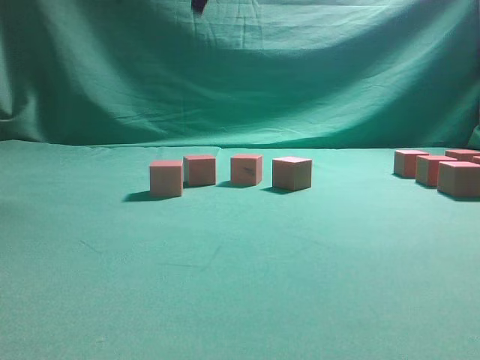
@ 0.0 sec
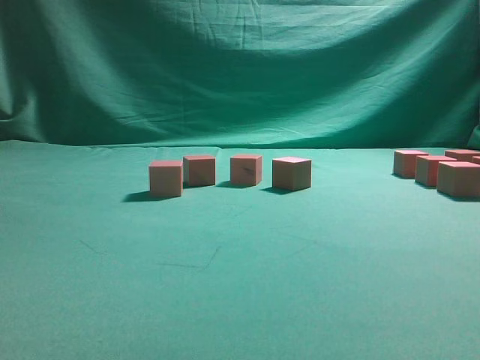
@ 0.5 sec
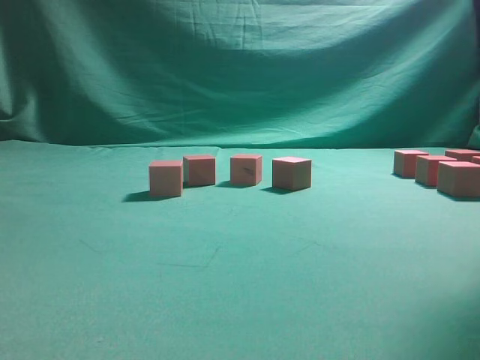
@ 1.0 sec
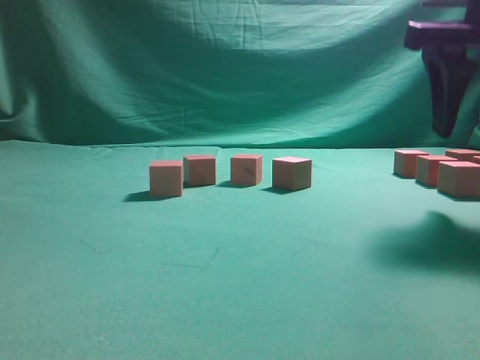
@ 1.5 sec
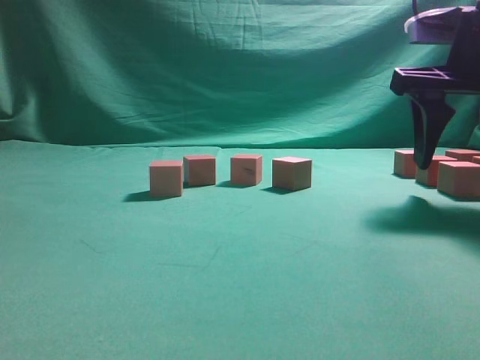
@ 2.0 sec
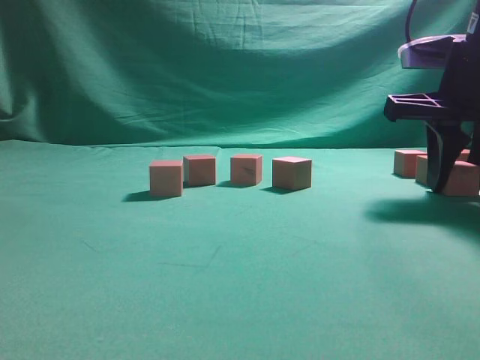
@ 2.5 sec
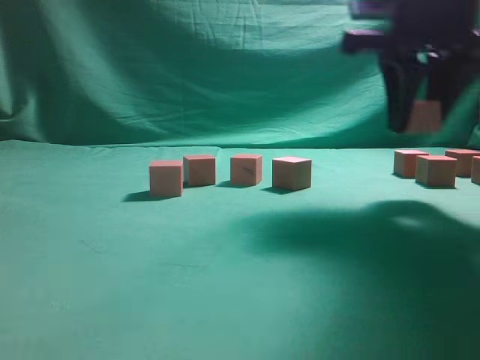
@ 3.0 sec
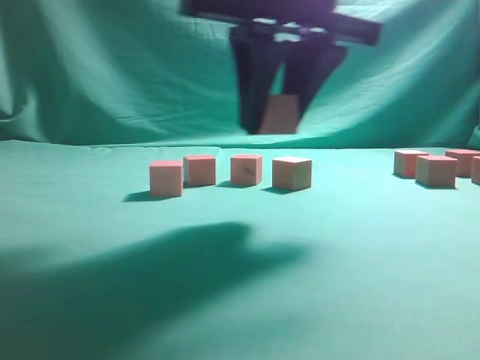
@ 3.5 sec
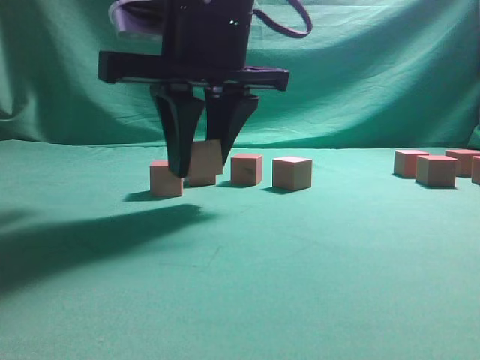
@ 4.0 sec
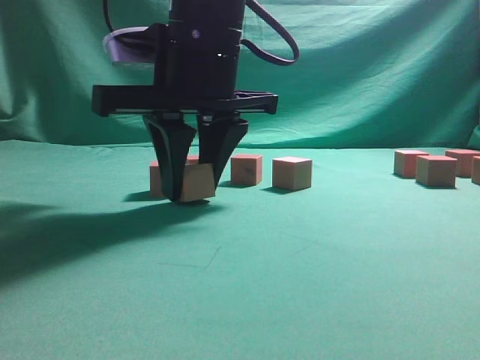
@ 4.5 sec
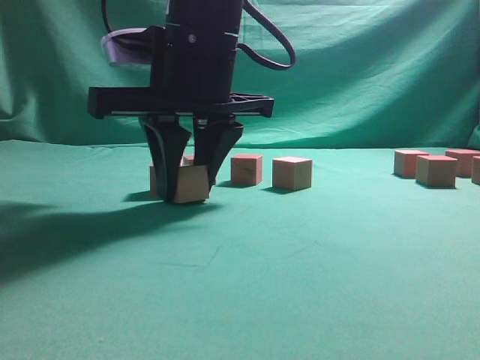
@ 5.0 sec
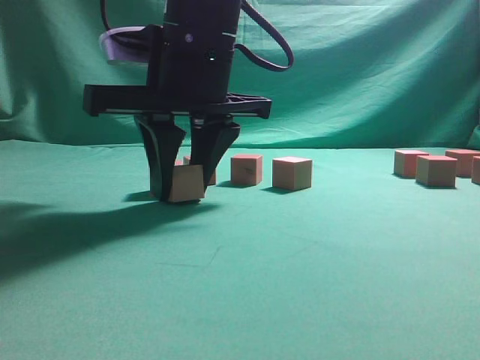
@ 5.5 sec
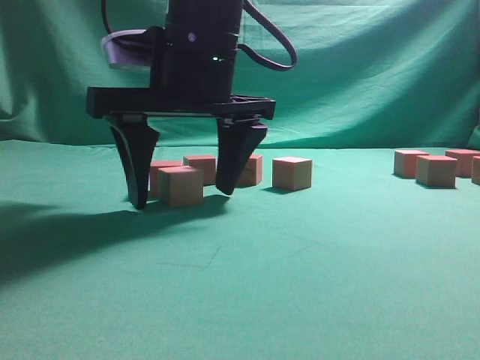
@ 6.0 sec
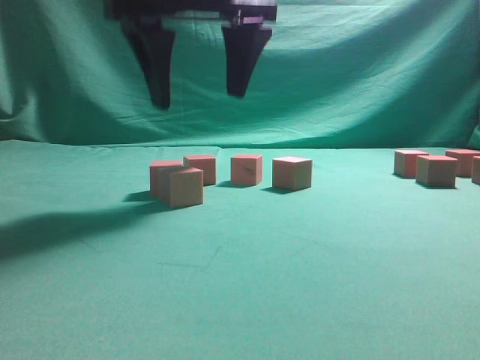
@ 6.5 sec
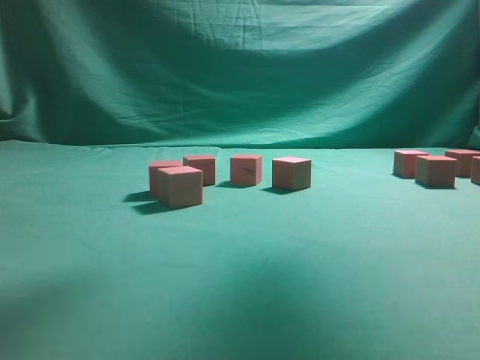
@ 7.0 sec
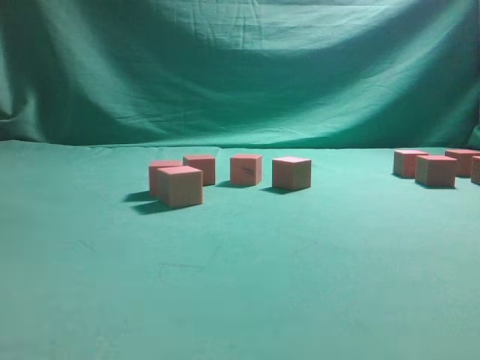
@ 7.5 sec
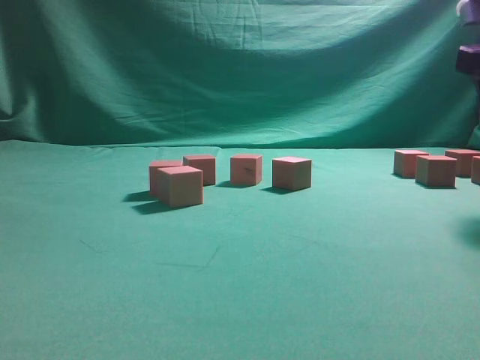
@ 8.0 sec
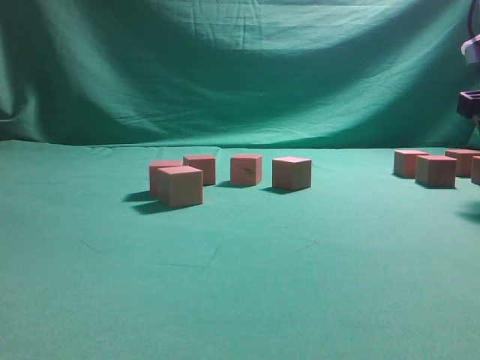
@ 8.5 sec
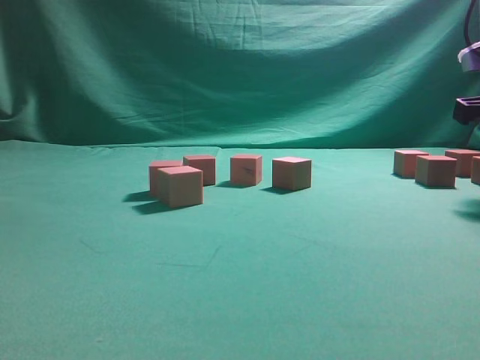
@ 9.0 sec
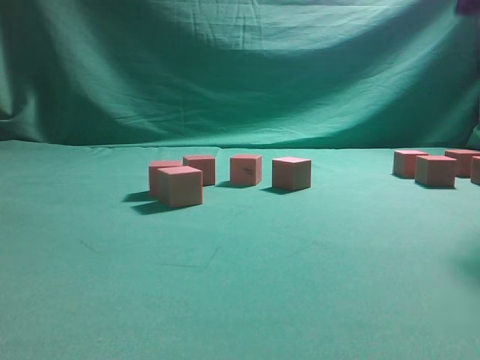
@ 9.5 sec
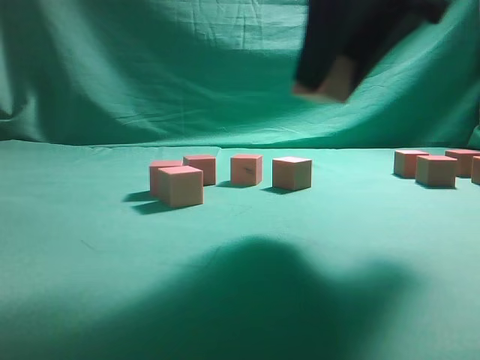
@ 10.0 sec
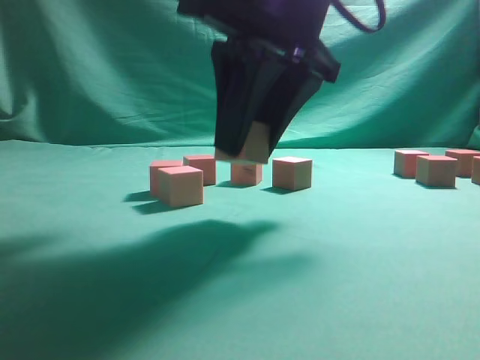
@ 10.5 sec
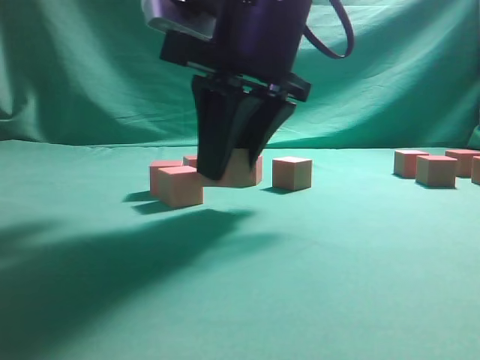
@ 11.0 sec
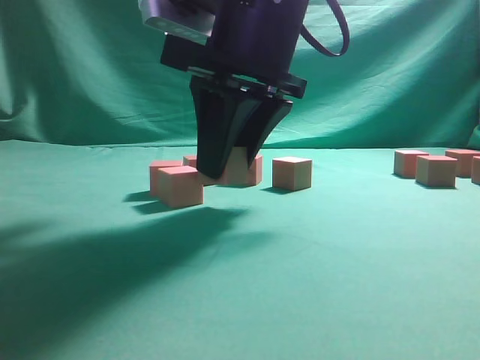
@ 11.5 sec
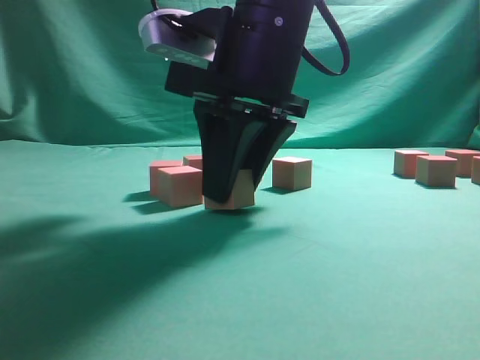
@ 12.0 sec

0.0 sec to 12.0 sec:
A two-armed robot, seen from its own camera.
Task of the whole recording: pick up the multiple cubes in two columns one by one and place them in another position on the table.
Step, 0.0 sec to 2.5 sec: Pick up the block on the table.
Step, 3.0 sec to 6.5 sec: Place the block at the correct position to assemble the letter S.
Step, 7.0 sec to 9.5 sec: Pick up the block on the table.
0.0 sec to 2.0 sec: The right gripper goes approximately 30 cm to the right and downward.
2.0 sec to 4.0 sec: The right gripper moves to the left, some 25 cm, and closes.
4.0 sec to 6.0 sec: The right gripper opens up.
6.0 sec to 8.0 sec: The right gripper heads to the right, covering some 30 cm.
8.0 sec to 10.0 sec: The right gripper is displaced to the left by about 15 cm, and closes its fingers.
10.0 sec to 12.0 sec: The right gripper heads to the left and downward, covering about 10 cm.

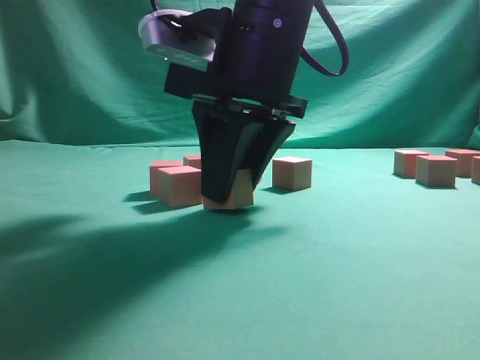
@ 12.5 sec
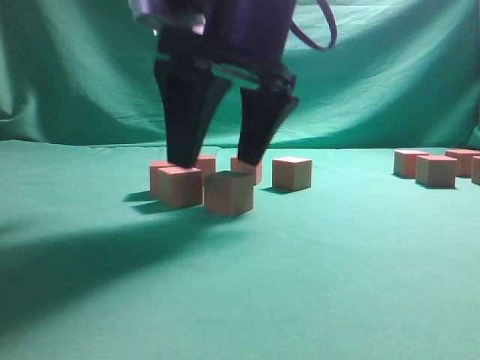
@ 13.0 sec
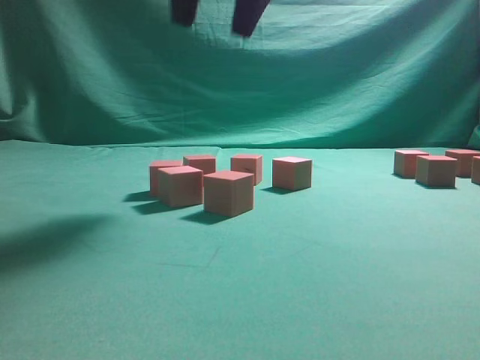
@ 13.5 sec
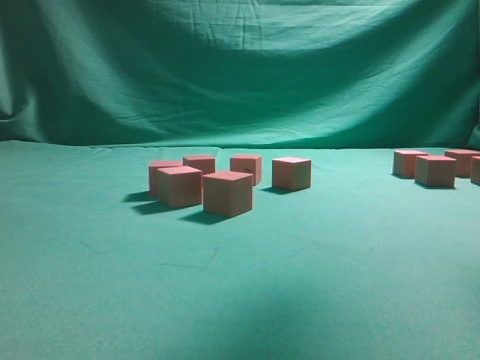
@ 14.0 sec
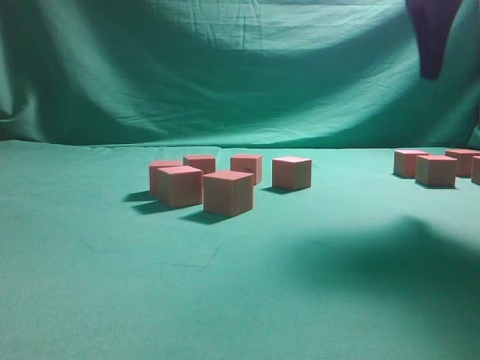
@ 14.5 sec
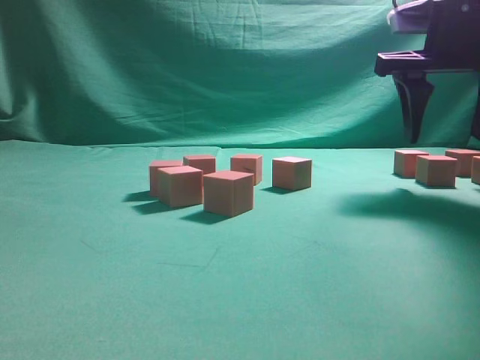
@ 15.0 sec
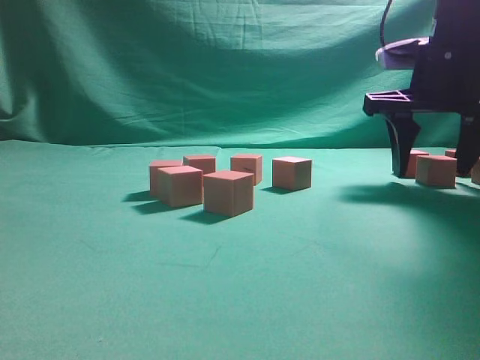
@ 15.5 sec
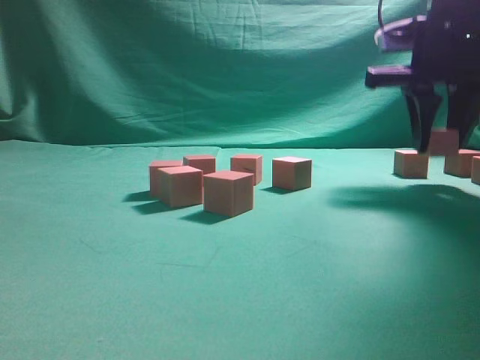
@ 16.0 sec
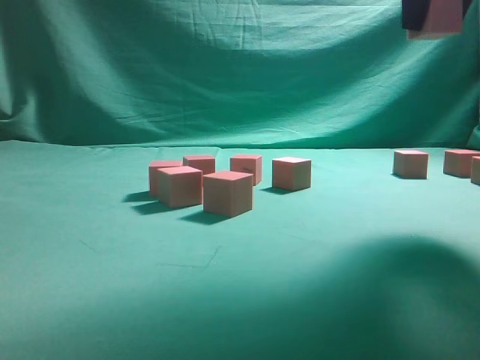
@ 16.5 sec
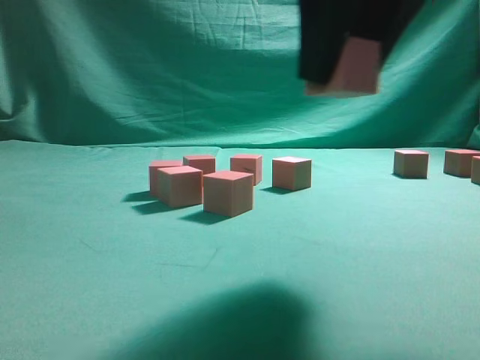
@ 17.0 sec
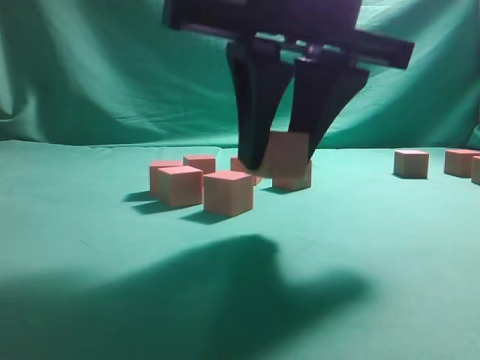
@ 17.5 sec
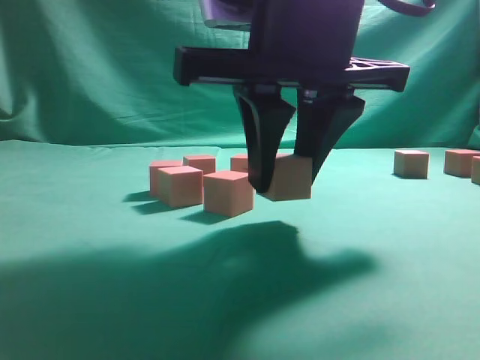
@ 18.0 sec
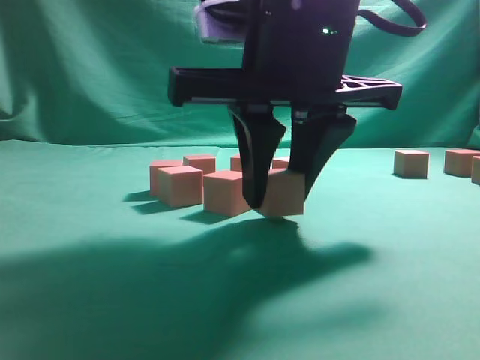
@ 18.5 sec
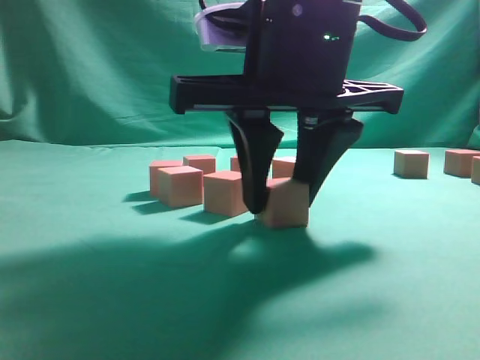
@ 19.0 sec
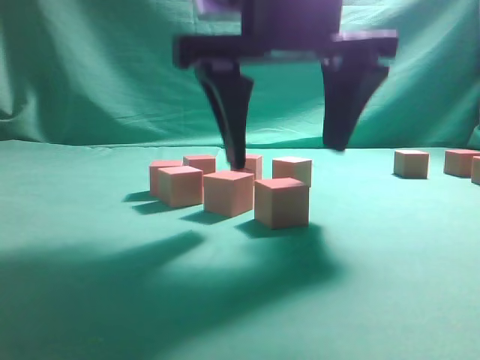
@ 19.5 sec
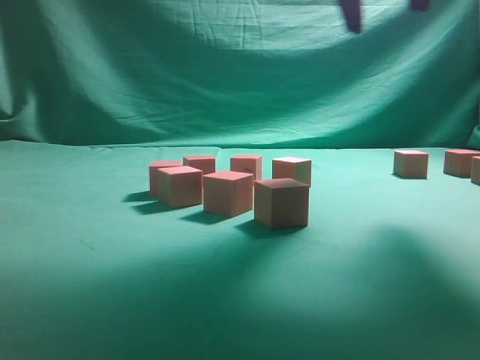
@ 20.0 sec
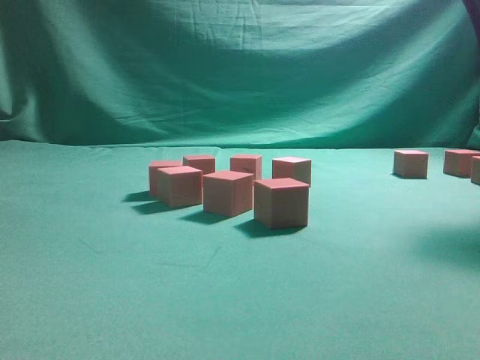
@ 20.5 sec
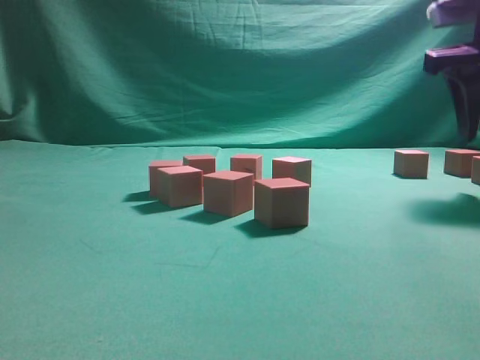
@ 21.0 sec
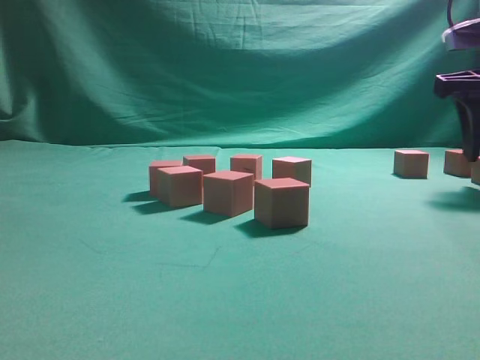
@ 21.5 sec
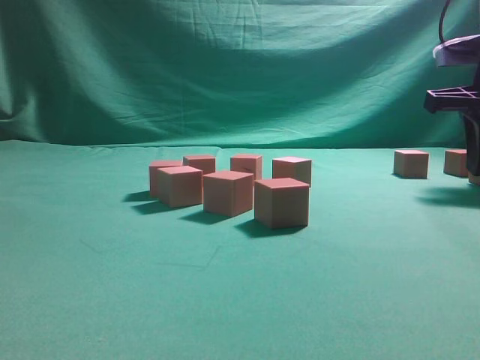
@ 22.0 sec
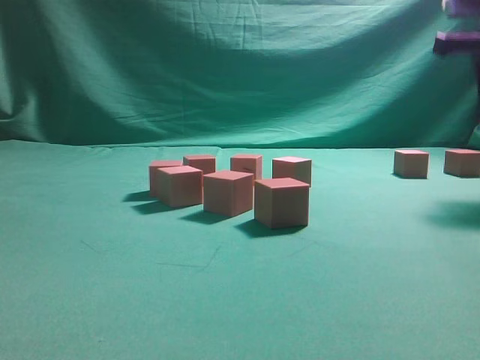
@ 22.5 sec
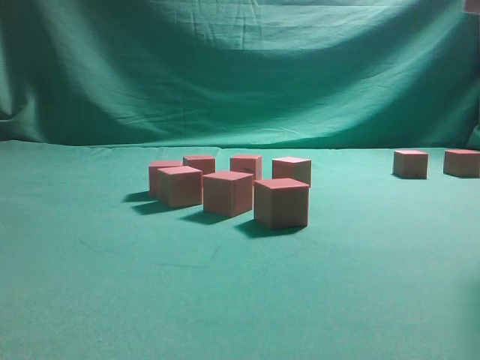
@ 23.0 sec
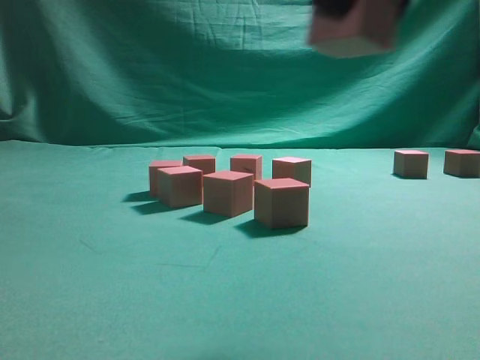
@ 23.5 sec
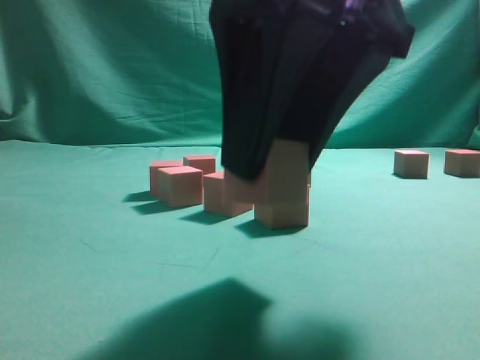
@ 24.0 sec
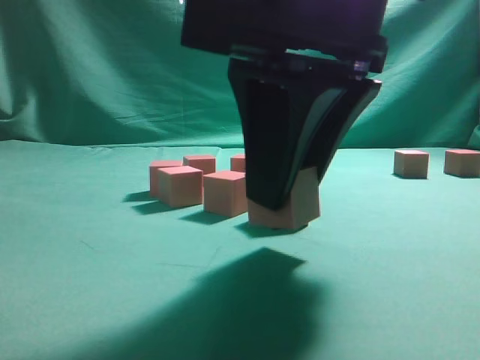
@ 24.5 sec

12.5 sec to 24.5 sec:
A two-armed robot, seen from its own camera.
Task of the whole recording: pick up the multiple cubes in two columns one by one and place them in another position on the table.
Step, 13.5 sec to 15.5 sec: Pick up the block on the table.
Step, 16.5 sec to 19.5 sec: Place the block at the correct position to assemble the letter S.
Step, 20.0 sec to 23.0 sec: Pick up the block on the table.
12.5 sec to 14.5 sec: The right gripper moves to the right and upward, about 20 cm, and opens.
14.5 sec to 16.5 sec: The right gripper goes downward and returns, approximately 10 cm each way, and closes its fingers.
16.5 sec to 18.5 sec: The right gripper travels downward, to the left and backward by some 20 cm.
18.5 sec to 20.5 sec: The right gripper travels to the right, upward and forward by roughly 25 cm, and opens its fingers.
20.5 sec to 22.5 sec: The right gripper travels downward by about 10 cm, and closes its fingers.
22.5 sec to 24.5 sec: The right gripper moves to the left and backward, about 30 cm.

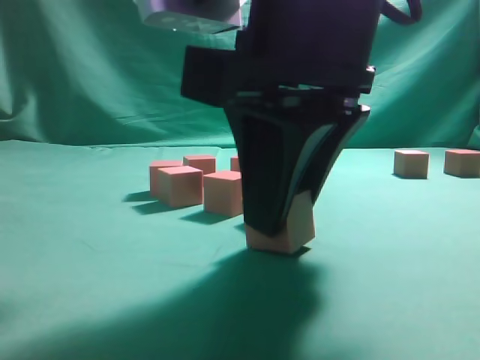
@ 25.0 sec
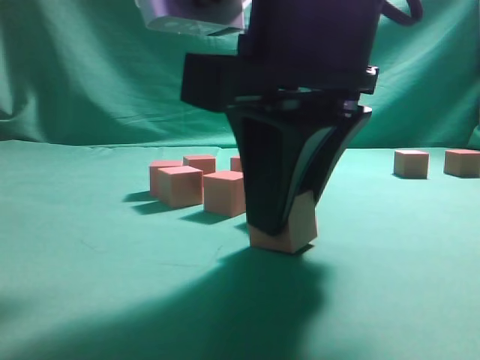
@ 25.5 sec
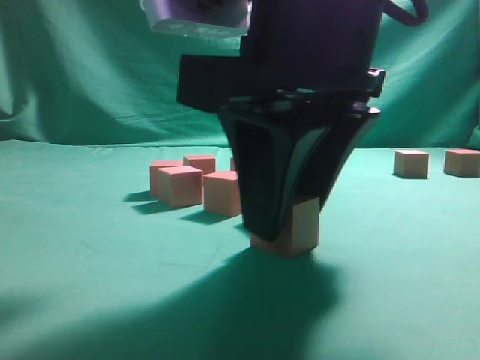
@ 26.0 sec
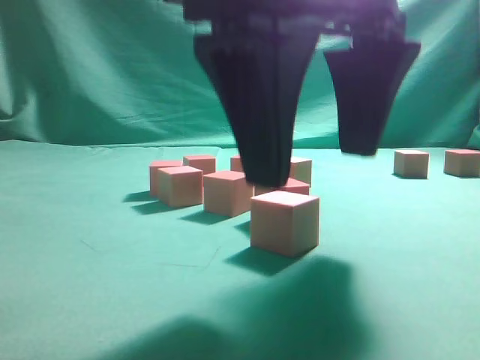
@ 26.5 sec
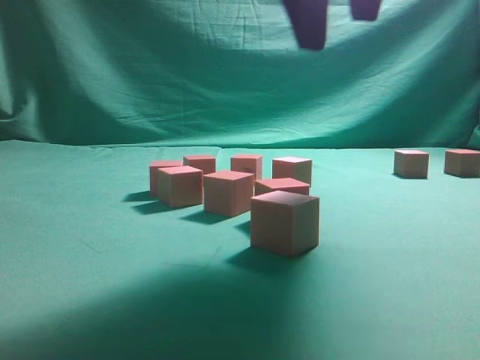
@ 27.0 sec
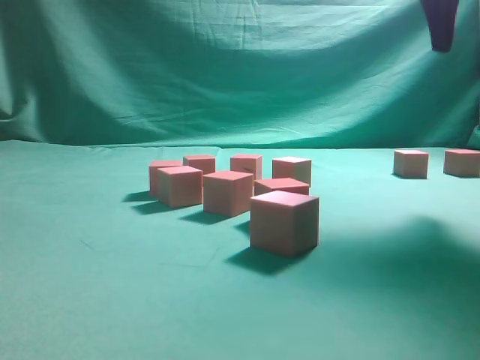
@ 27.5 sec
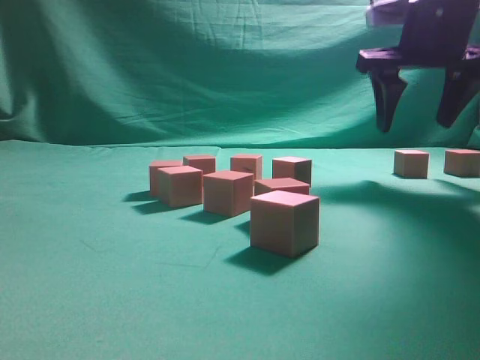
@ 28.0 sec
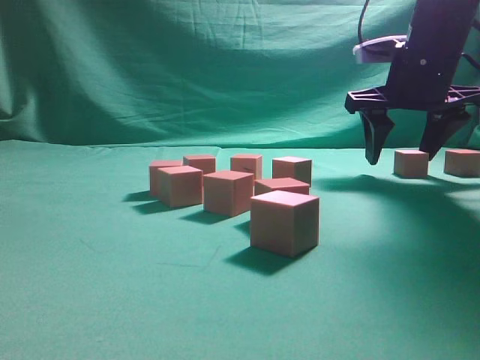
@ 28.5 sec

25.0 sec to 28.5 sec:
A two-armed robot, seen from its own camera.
Task of the whole recording: pick up the multiple cubes in two columns one by one and place them in another position on the table.
25.0 sec to 27.0 sec: The right gripper is displaced upward and forward by about 15 cm, and opens.
27.0 sec to 28.5 sec: The right gripper moves forward, to the right and downward, about 25 cm.
